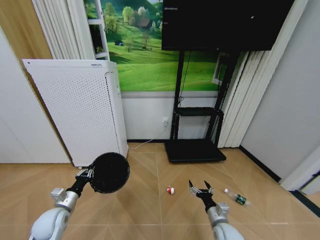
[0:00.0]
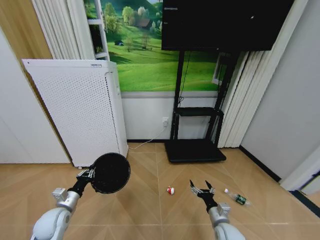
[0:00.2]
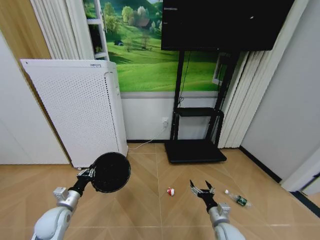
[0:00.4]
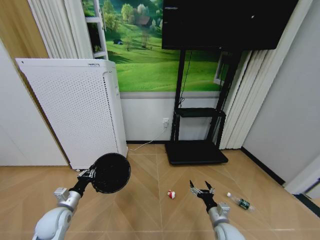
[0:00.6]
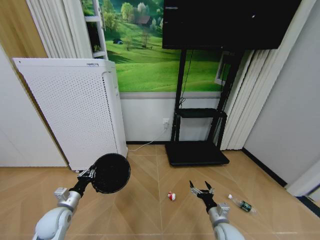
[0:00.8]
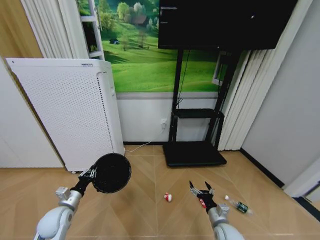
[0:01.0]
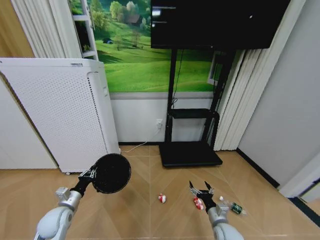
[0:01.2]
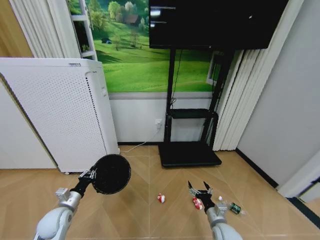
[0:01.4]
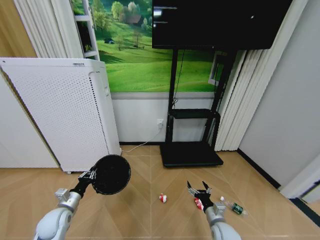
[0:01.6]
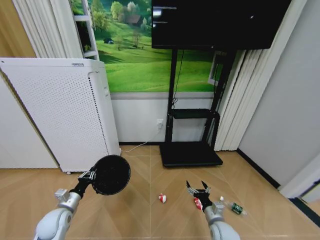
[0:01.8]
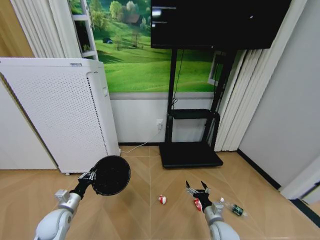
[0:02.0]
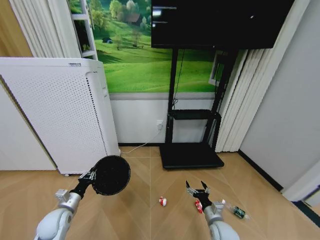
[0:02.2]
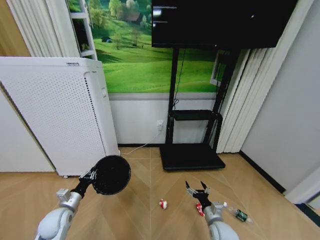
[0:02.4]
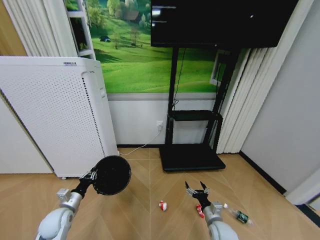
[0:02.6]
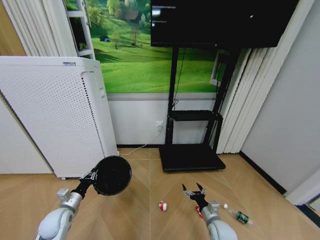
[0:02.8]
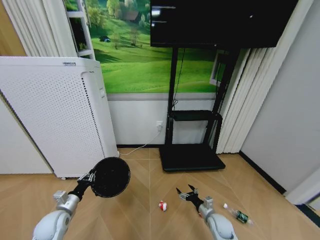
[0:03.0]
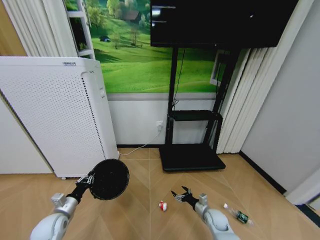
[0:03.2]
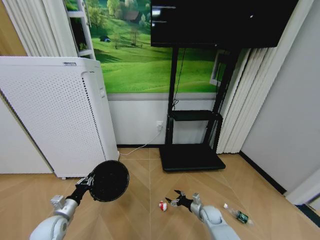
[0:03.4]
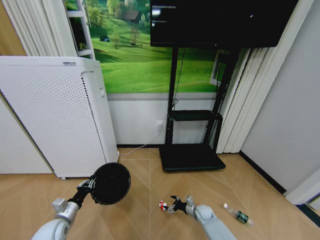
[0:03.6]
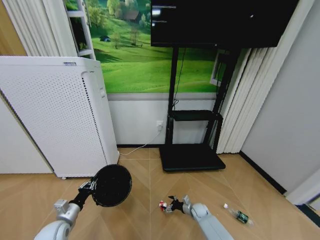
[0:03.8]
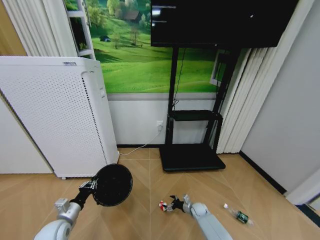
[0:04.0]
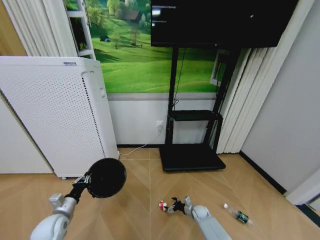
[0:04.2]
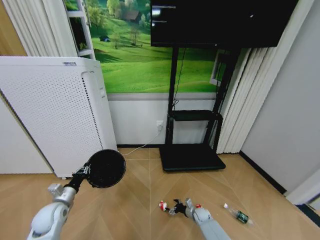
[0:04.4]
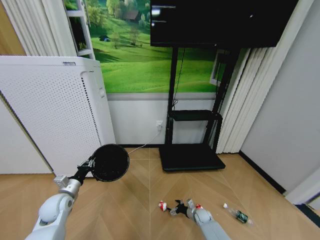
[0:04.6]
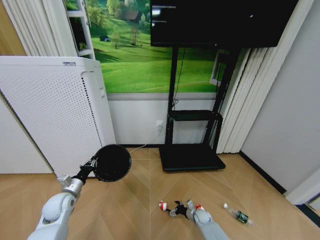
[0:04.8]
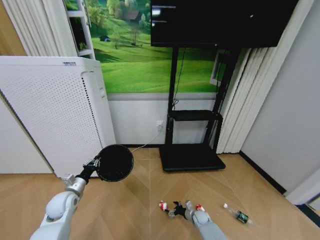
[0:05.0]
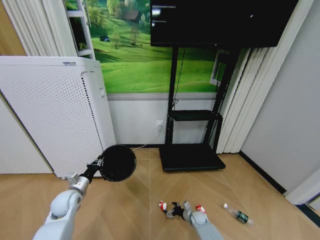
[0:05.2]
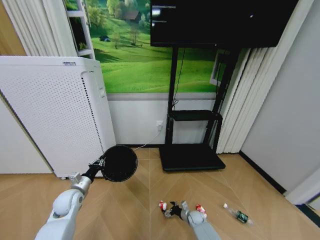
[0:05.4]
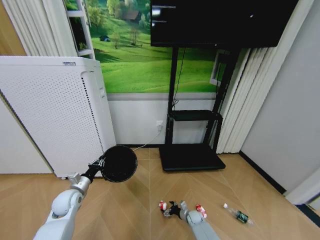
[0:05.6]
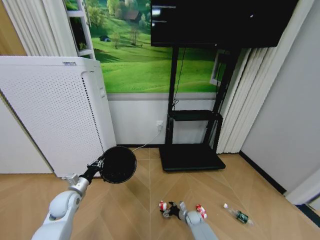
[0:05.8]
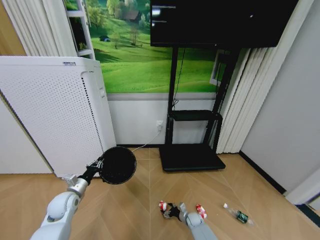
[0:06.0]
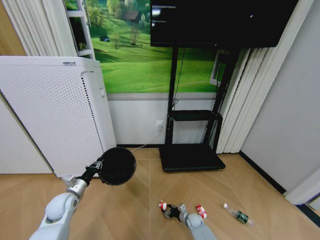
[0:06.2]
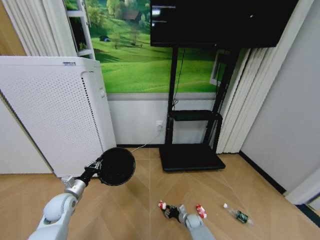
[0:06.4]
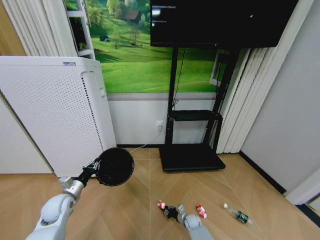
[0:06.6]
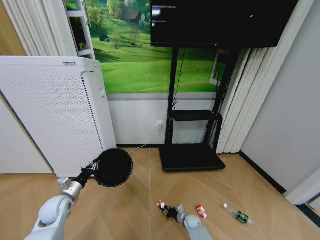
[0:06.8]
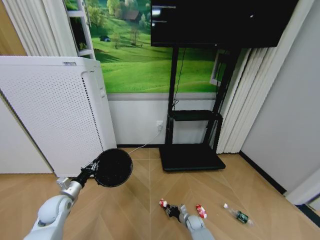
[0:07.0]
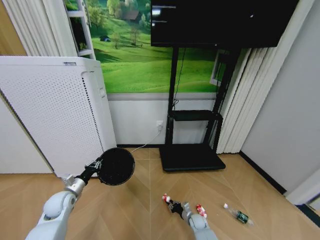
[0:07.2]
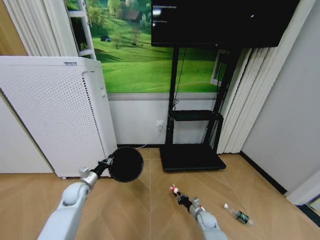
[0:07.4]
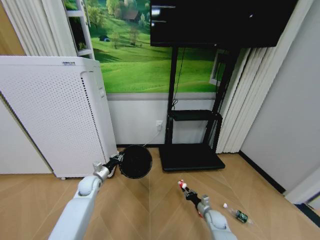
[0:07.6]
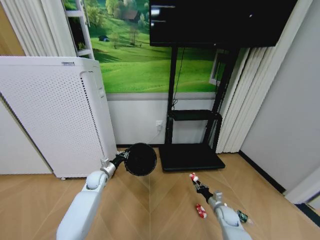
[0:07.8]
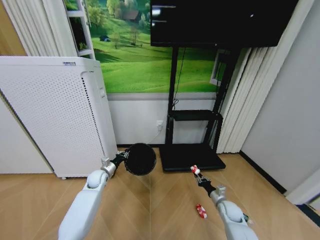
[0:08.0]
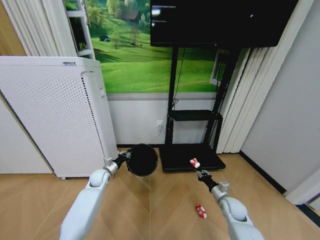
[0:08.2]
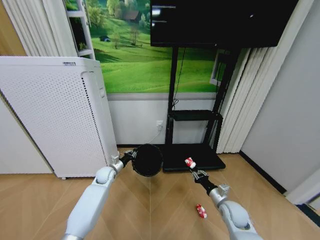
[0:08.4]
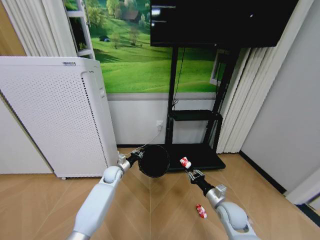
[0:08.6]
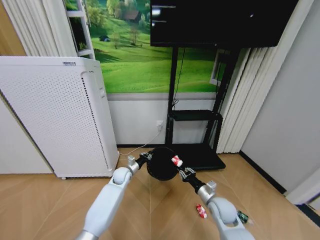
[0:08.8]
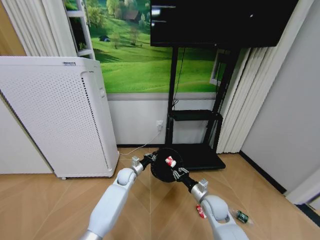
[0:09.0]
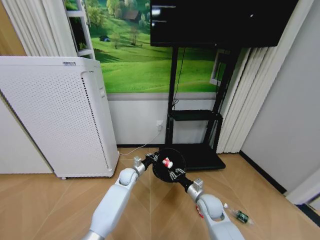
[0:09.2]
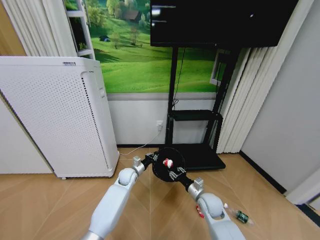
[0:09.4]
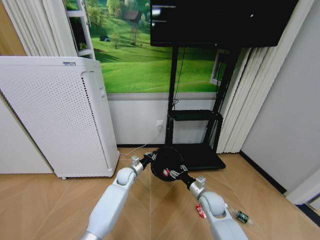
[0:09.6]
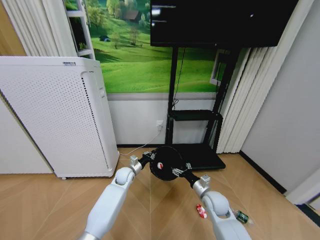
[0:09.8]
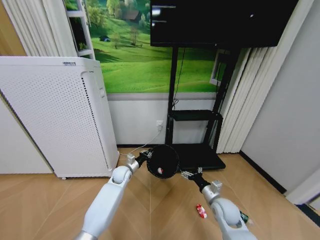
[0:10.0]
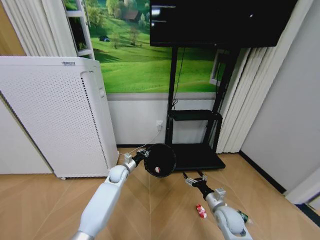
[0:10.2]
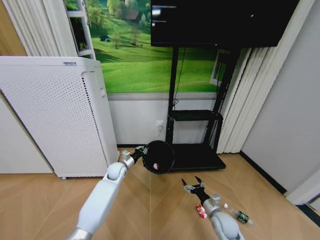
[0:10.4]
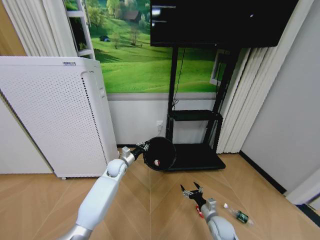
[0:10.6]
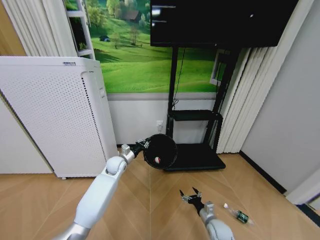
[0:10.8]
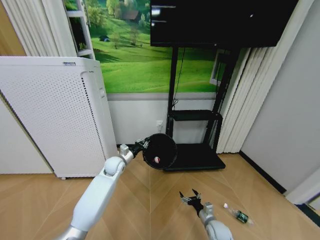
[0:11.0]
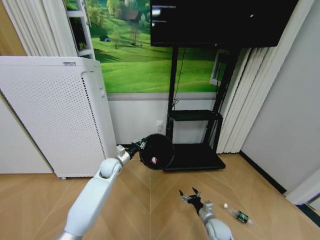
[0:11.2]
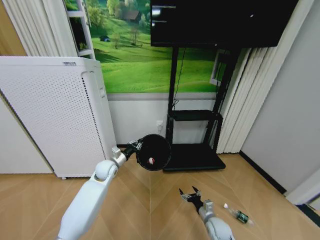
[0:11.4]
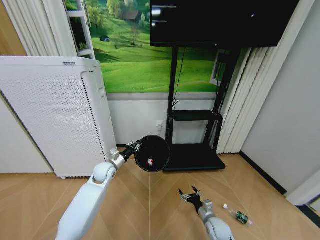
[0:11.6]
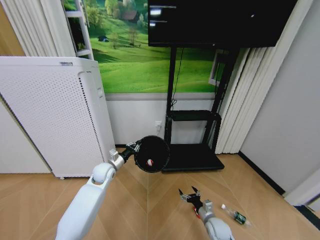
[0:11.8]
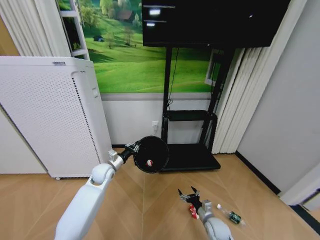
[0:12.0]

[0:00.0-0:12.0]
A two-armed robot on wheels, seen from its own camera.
Task of the whole recording: Pick up the trash bin and place the garbage on the floor into it.
1.6 to 3.0 s: The right gripper shifts by roughly 5 cm.
3.0 to 4.4 s: The right gripper is displaced downward and forward by approximately 15 cm.
4.4 to 6.0 s: The left gripper shifts approximately 5 cm forward. Meanwhile the right gripper shifts by roughly 5 cm.
6.0 to 7.6 s: The right gripper shifts approximately 15 cm upward and to the right, and closes its fingers; the left gripper shifts approximately 15 cm forward and to the right.
7.6 to 9.0 s: The right gripper shifts roughly 20 cm upward and to the left. Meanwhile the left gripper heads to the right, covering roughly 15 cm.
9.0 to 10.4 s: The left gripper changes place by about 5 cm, while the right gripper moves downward and to the right, approximately 10 cm, and opens up.
10.4 to 12.0 s: The right gripper shifts about 5 cm downward; the left gripper shifts some 5 cm upward.

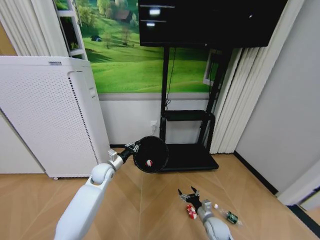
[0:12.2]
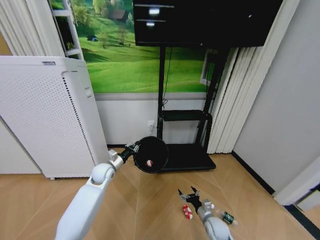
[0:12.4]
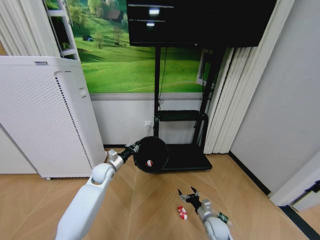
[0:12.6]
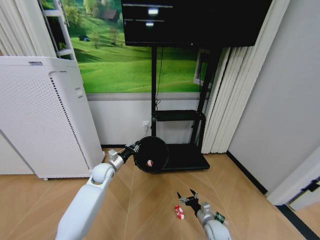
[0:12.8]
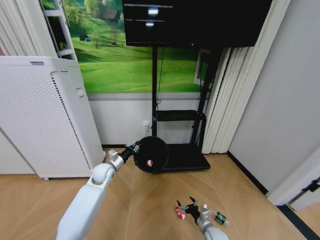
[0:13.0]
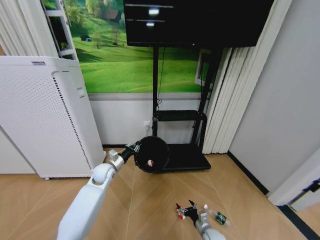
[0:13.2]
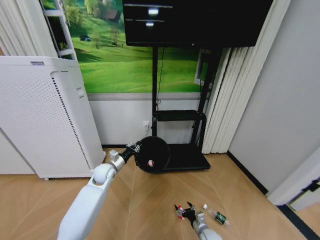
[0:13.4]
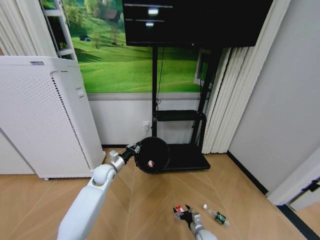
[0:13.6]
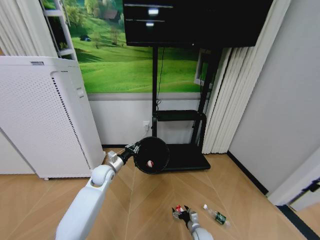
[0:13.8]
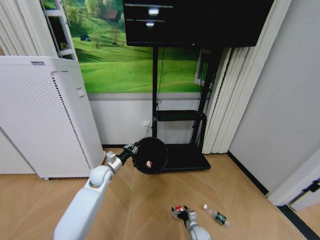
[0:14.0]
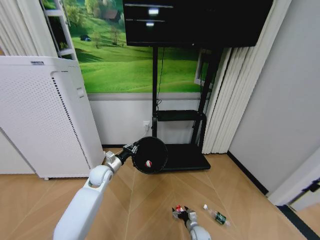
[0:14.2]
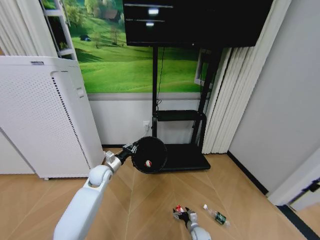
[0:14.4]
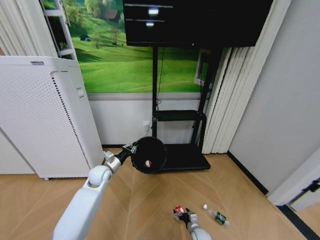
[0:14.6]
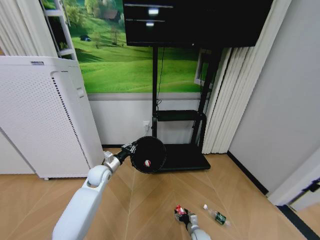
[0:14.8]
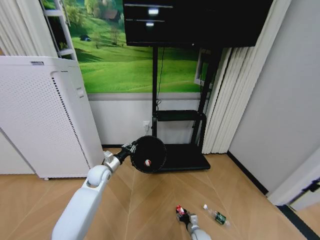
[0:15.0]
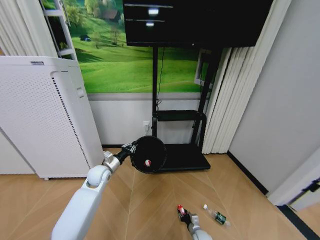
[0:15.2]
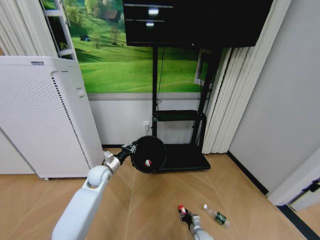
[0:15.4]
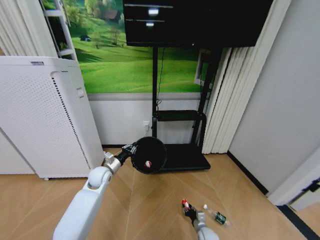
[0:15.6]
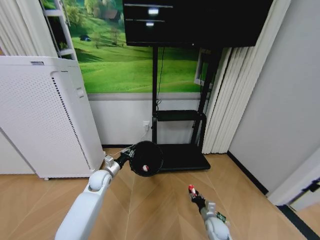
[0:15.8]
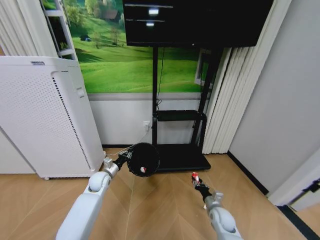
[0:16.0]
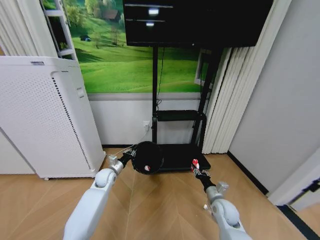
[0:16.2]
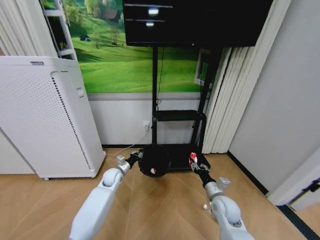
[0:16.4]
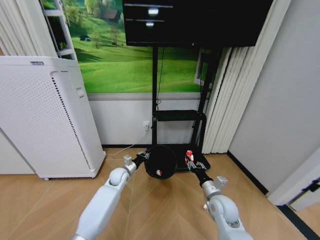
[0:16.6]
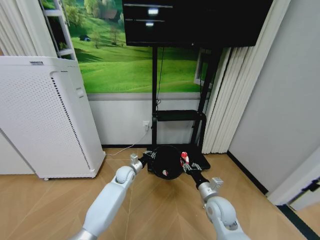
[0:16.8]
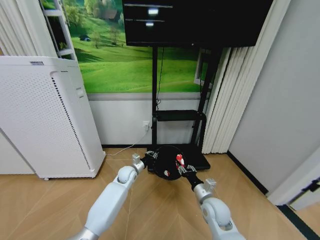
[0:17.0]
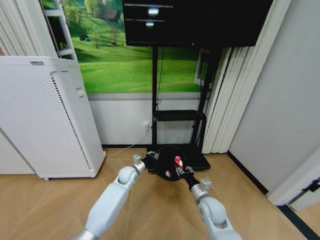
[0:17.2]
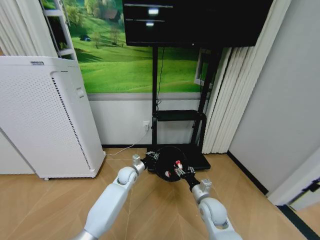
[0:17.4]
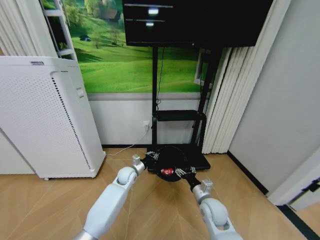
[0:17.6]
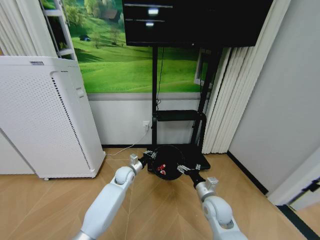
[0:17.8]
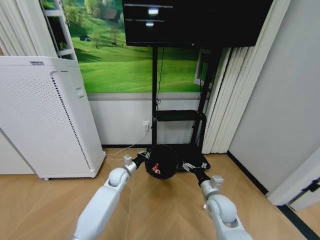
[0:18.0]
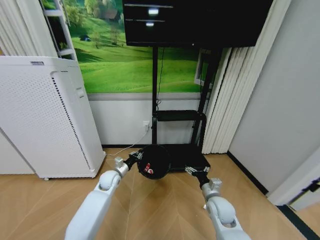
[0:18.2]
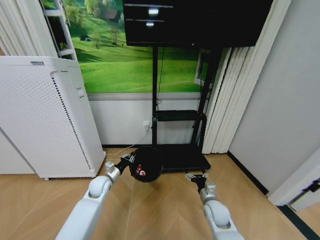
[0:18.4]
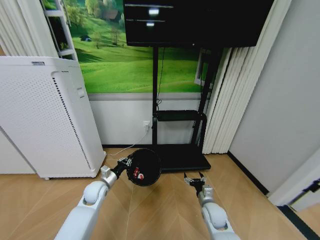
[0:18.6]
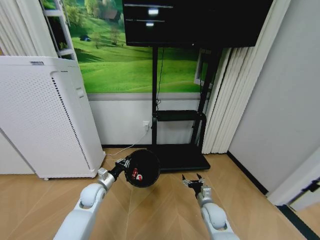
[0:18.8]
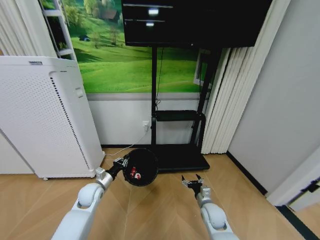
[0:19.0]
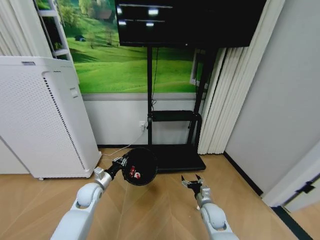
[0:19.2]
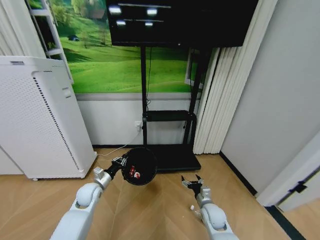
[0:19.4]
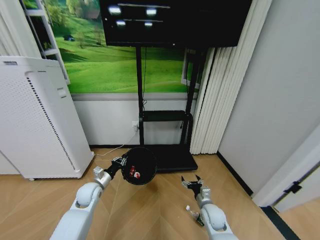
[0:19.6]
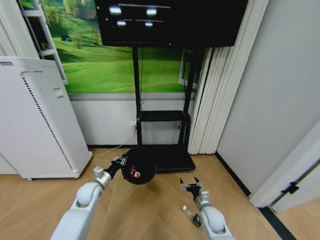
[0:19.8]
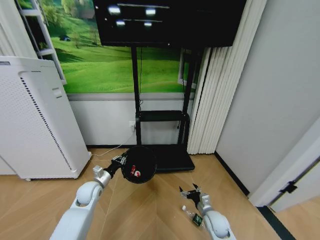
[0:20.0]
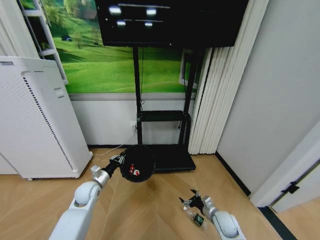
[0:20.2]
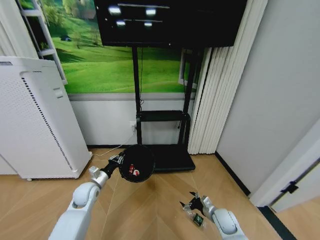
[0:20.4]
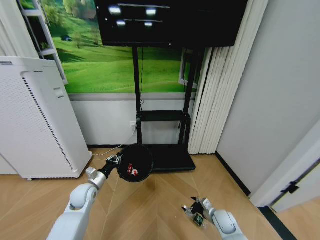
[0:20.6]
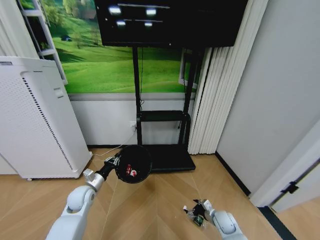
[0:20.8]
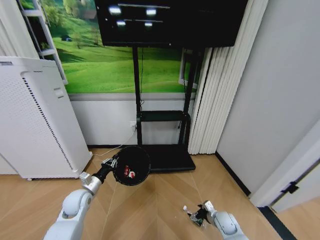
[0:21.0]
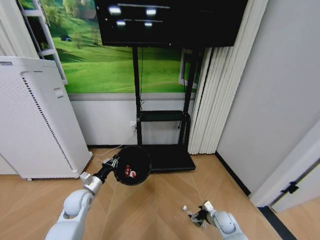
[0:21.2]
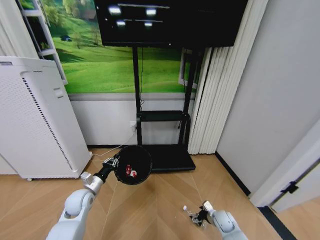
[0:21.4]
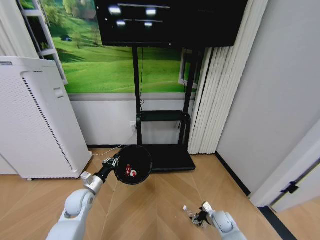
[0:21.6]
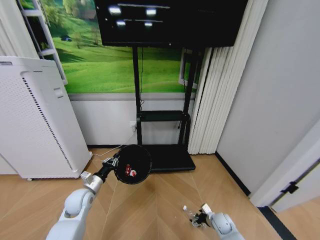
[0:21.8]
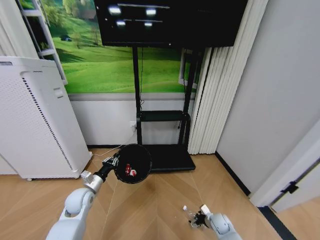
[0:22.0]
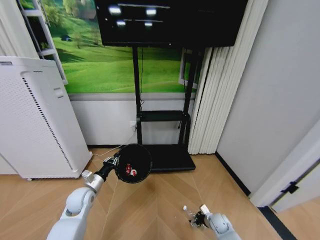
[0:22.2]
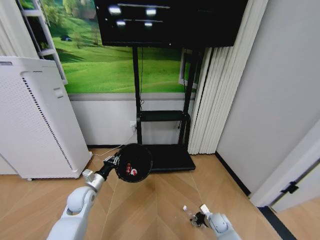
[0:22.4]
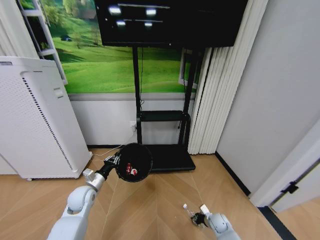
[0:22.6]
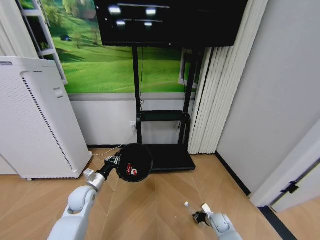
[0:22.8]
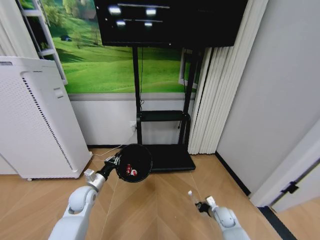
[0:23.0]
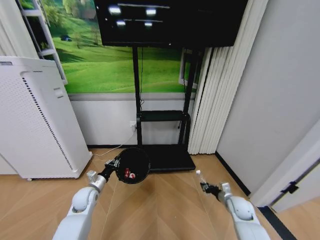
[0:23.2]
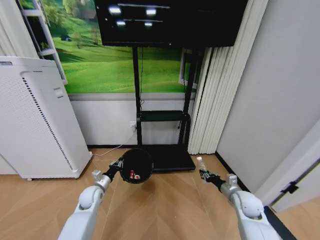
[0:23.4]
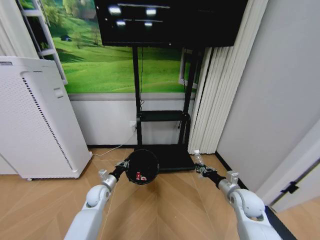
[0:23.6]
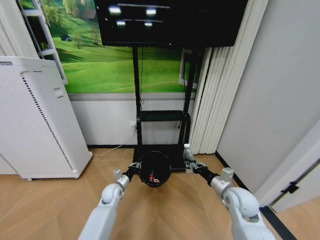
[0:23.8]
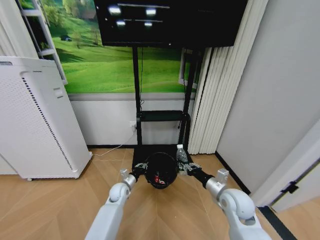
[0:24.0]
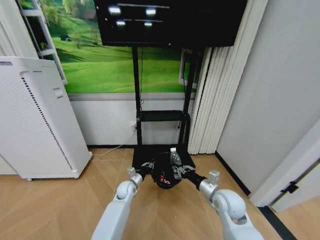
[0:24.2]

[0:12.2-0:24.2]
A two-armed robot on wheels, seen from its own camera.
Task of the whole recording: Pick up the trash bin and place the garbage on the floor into it.
12.2 to 13.8 s: The right gripper travels downward by roughly 10 cm.
13.8 to 15.2 s: The right gripper closes up.
15.2 to 16.6 s: The right gripper goes roughly 30 cm upward. The left gripper travels to the right and downward by about 10 cm.
16.6 to 18.2 s: The right gripper opens its fingers, while the left gripper ends up some 5 cm from where it was.
18.2 to 19.8 s: The right gripper travels downward by roughly 10 cm. Meanwhile the left gripper is displaced to the left and backward by some 10 cm.
19.8 to 21.2 s: The right gripper shifts some 10 cm to the right and downward.
21.2 to 22.6 s: The right gripper shifts some 5 cm downward, and closes up.
22.6 to 24.2 s: The right gripper shifts some 30 cm upward, while the left gripper is displaced to the right, downward and forward by about 20 cm.
